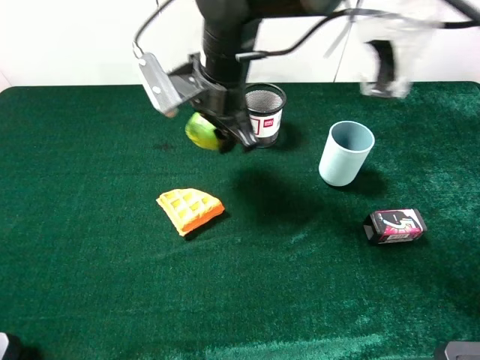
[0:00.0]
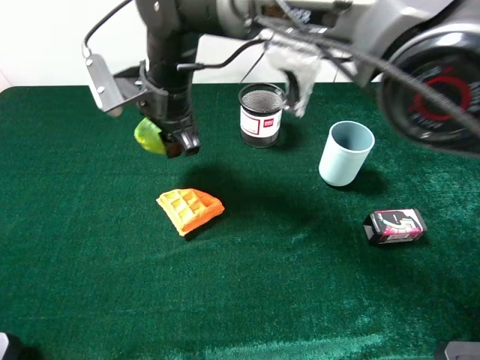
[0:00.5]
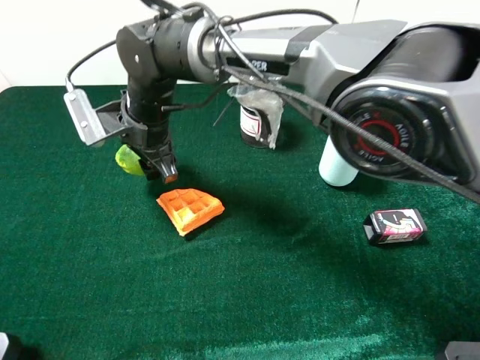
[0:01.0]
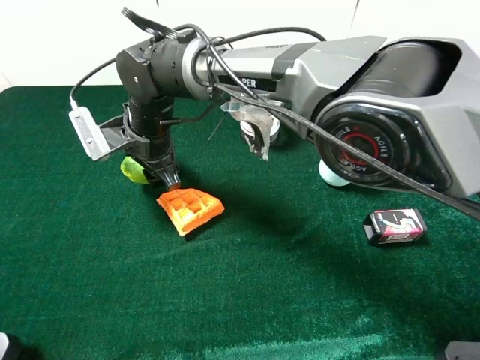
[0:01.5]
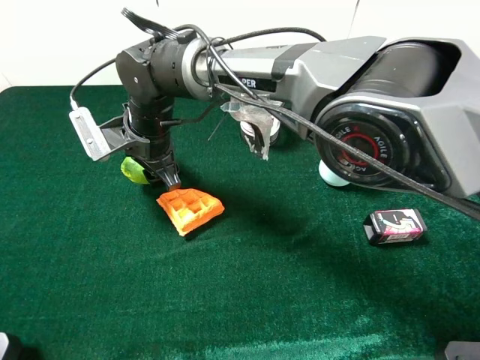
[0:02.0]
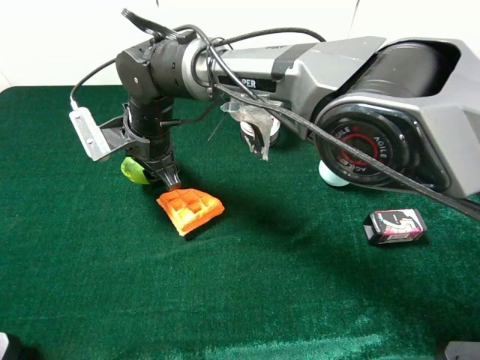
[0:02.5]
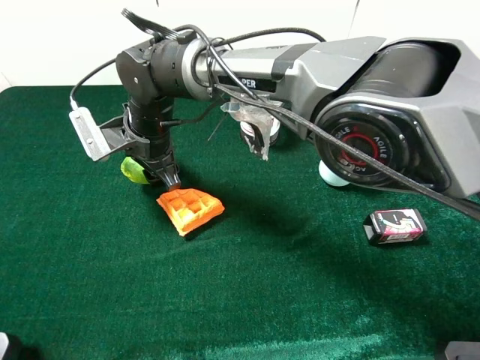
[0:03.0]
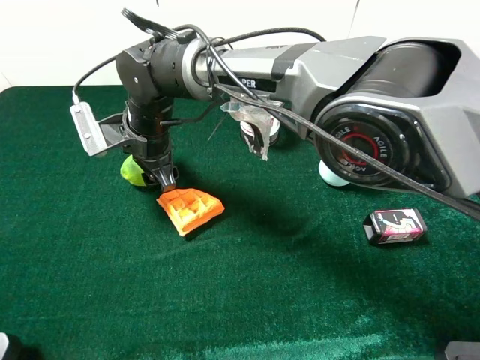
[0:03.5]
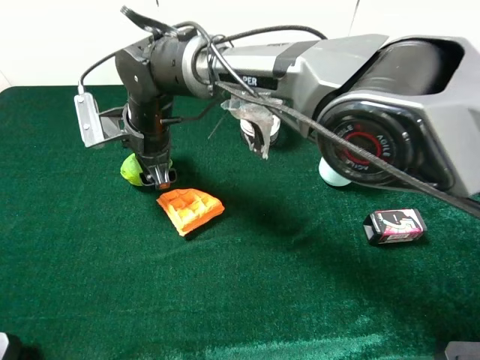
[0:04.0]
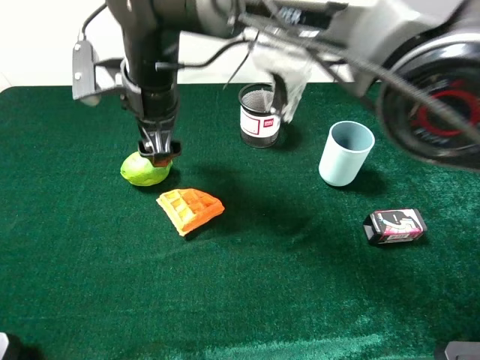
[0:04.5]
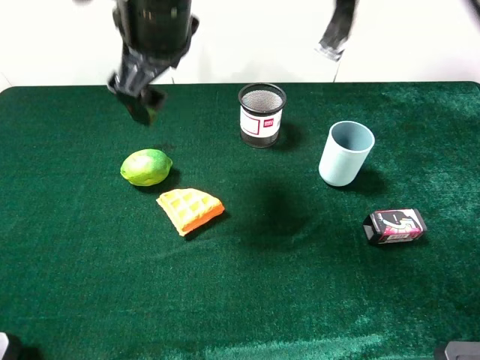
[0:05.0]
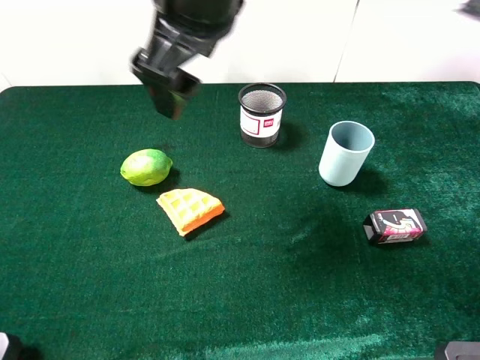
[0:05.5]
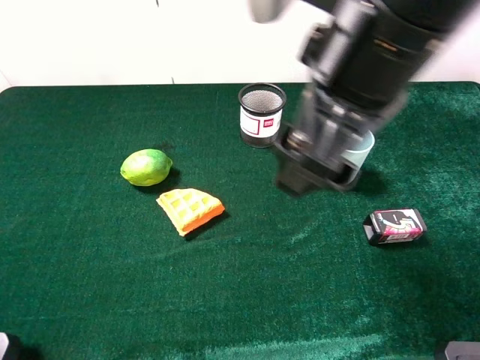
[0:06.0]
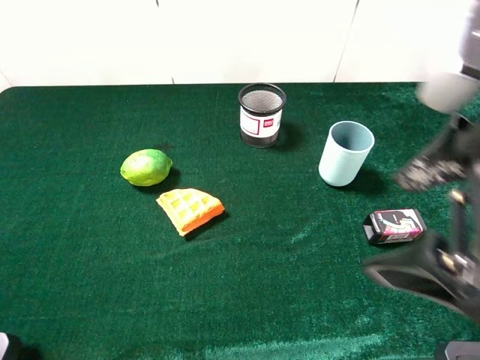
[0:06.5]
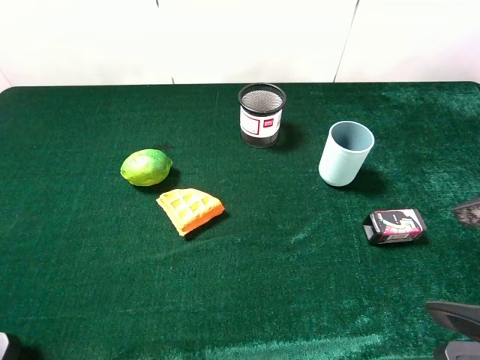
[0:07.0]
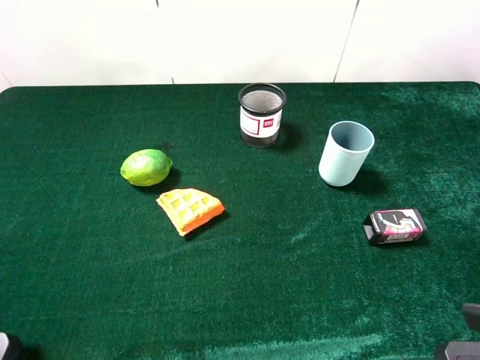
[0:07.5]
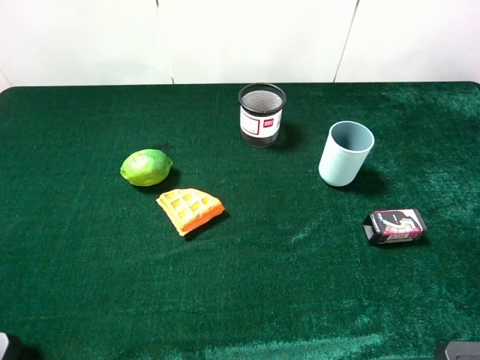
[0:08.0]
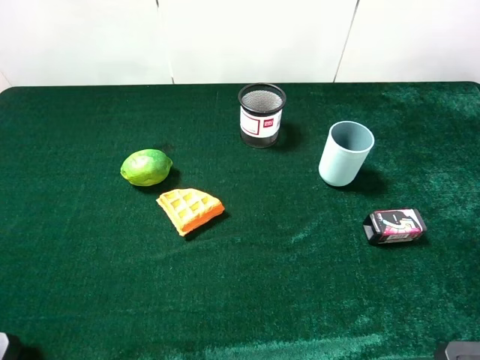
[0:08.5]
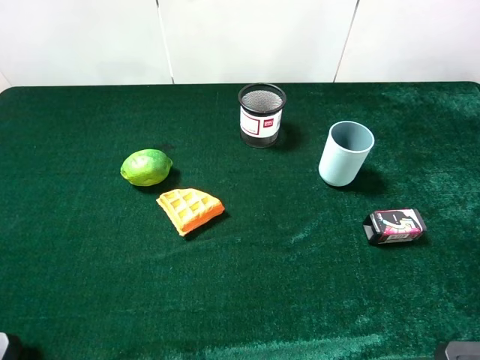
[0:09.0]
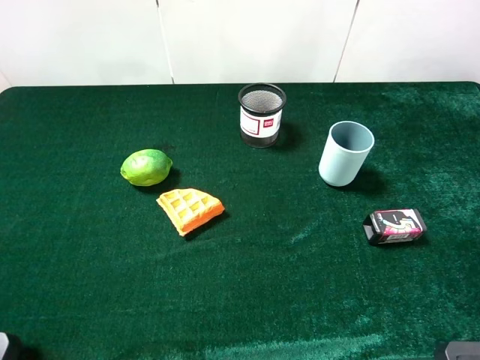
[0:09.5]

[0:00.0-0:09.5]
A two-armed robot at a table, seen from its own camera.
Task of the whole recording: the gripper move the object.
Step, 0:00.0 to 0:04.5: Place the green lemon on the table with the right gripper.
0:00.0 to 0:02.0: The right gripper moves to the left and downward, roughly 15 cm.
0:02.0 to 0:04.0: The right gripper opens.
0:04.0 to 0:05.5: The right gripper goes roughly 25 cm upward and to the right.
0:05.5 to 0:07.5: The right gripper travels to the right and backward by approximately 40 cm.

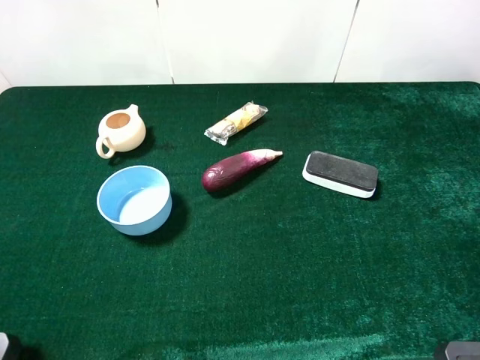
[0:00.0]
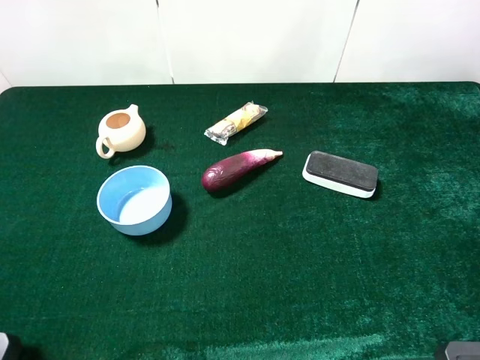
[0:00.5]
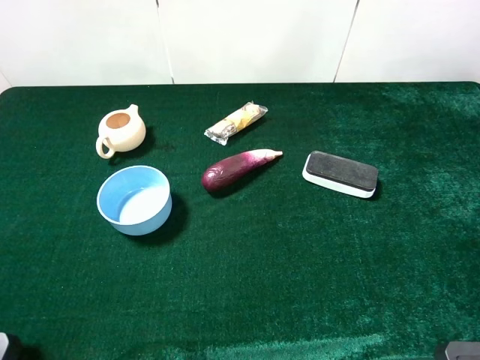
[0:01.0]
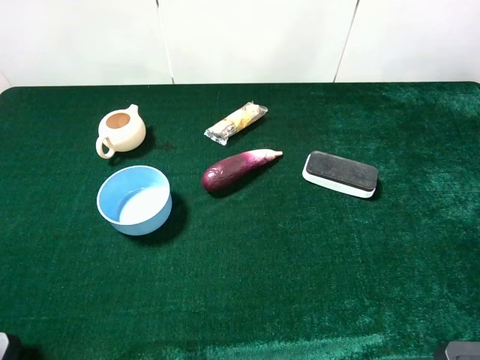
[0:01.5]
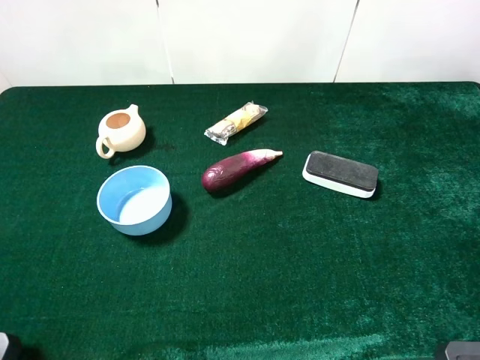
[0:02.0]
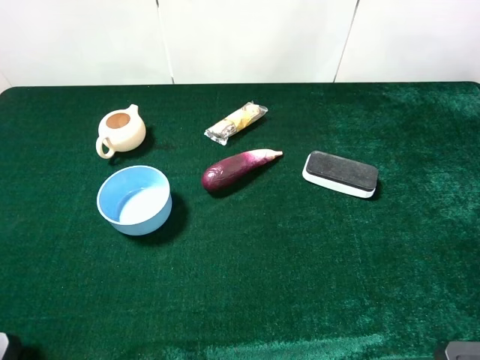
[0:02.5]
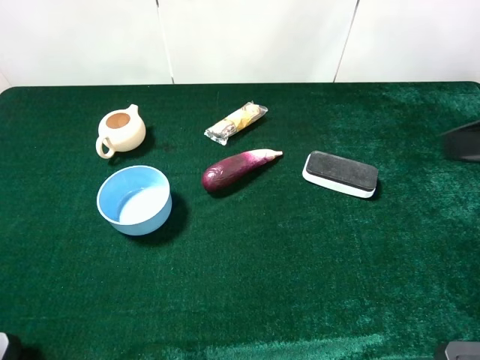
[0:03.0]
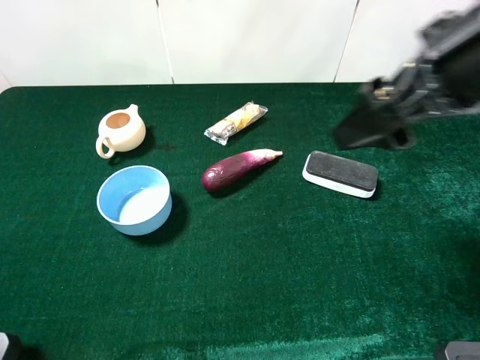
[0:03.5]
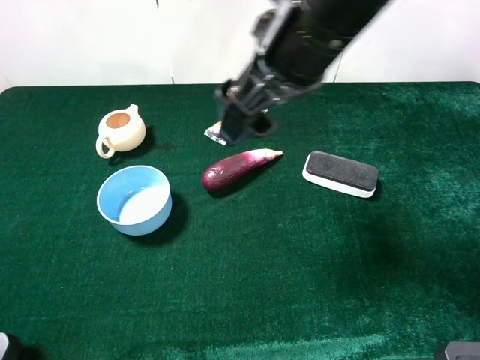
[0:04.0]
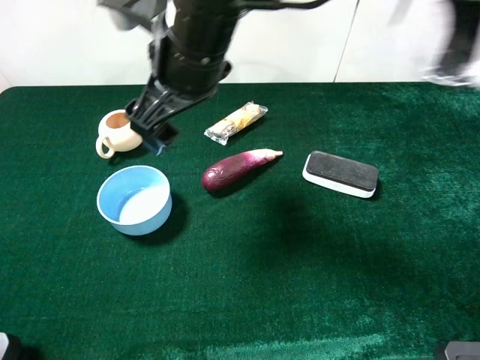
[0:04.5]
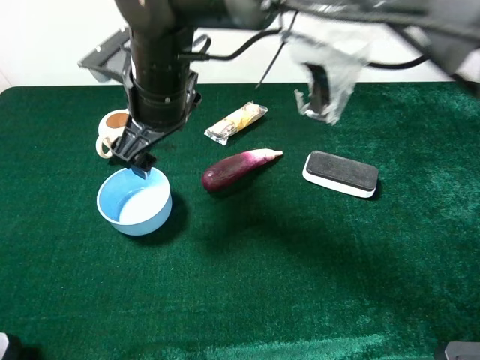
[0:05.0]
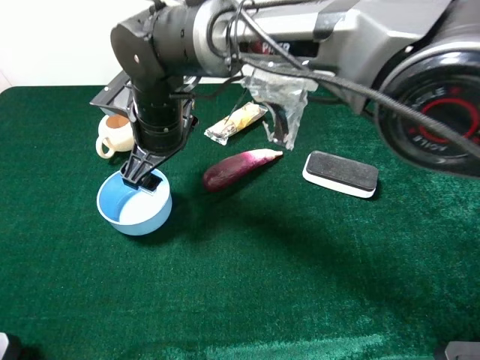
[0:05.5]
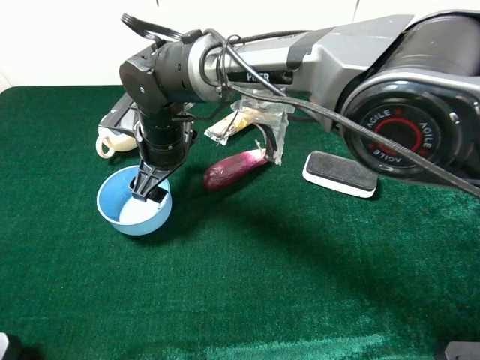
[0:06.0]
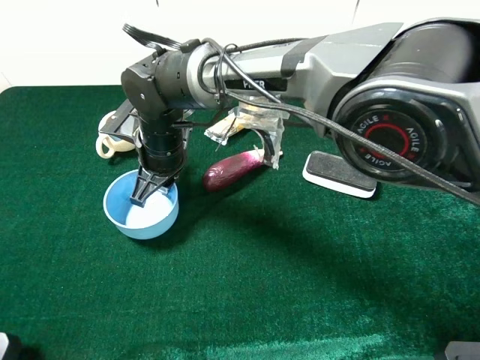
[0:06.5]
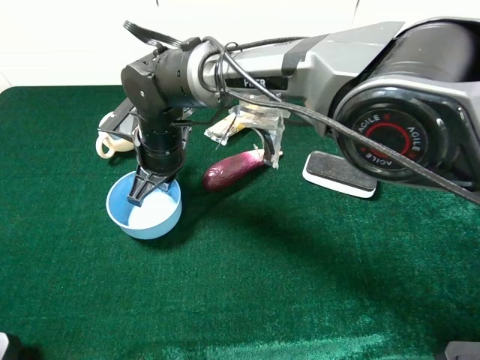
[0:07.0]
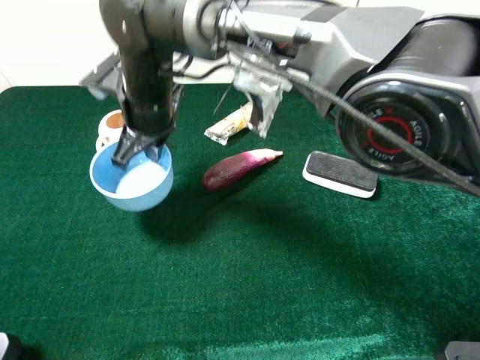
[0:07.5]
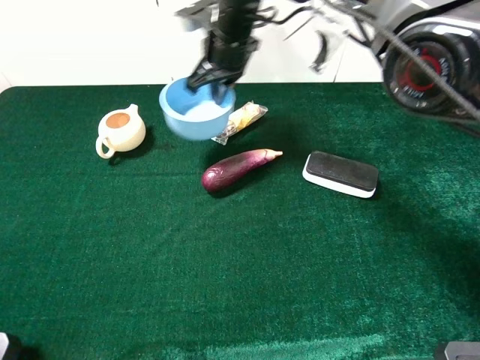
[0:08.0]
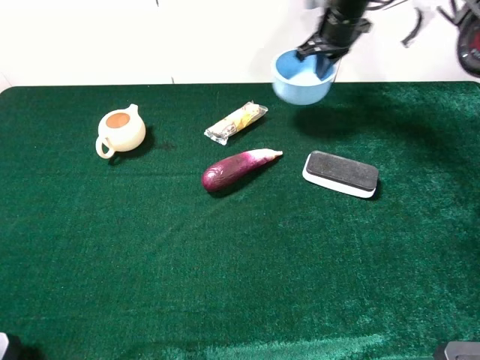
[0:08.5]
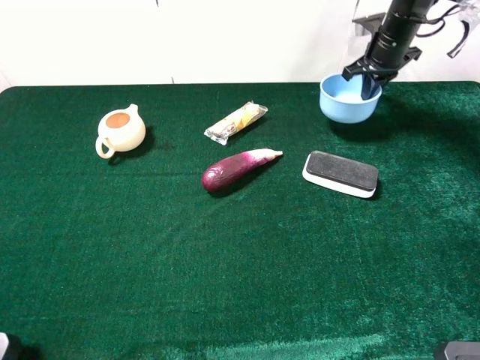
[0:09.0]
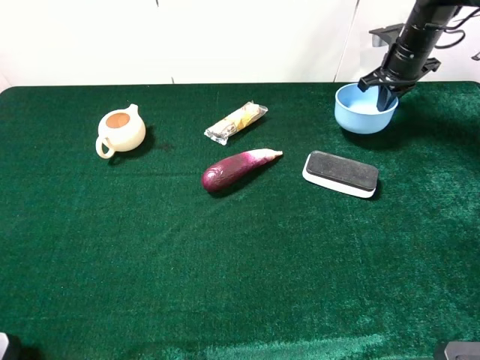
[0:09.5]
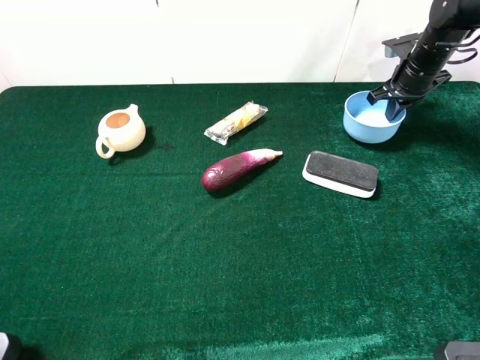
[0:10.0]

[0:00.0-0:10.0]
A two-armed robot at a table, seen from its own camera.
Task of the whole recording: the gripper move the object.
Step, 0:00.0 to 0:06.5: Grasp the blue bowl with the right gripper.
0:02.0 to 0:04.0: The right gripper shifts roughly 30 cm forward and to the left.
0:04.0 to 0:06.0: The right gripper goes about 25 cm downward and to the left.
0:06.0 to 0:08.0: The right gripper goes some 15 cm forward, upward and to the right, and closes.
0:08.0 to 0:10.0: The right gripper goes some 35 cm to the right.

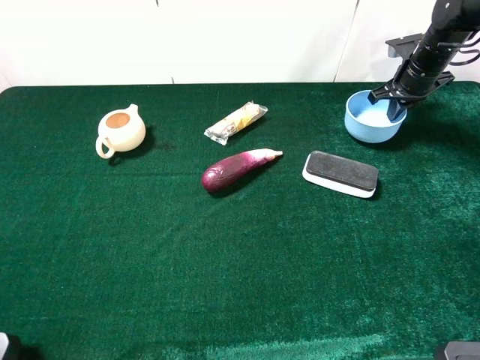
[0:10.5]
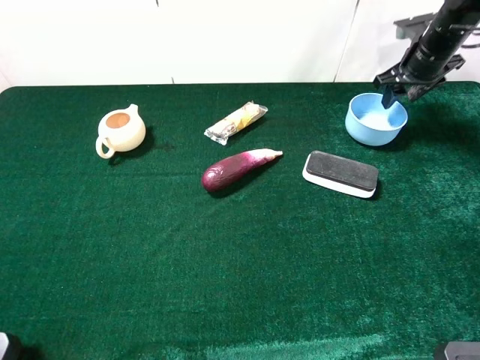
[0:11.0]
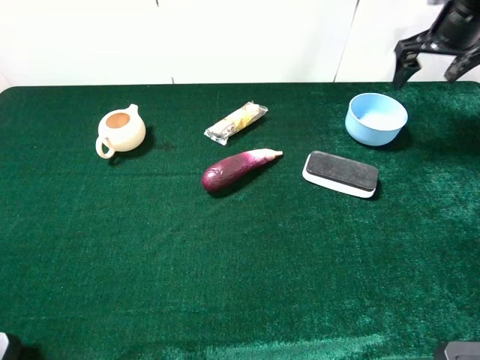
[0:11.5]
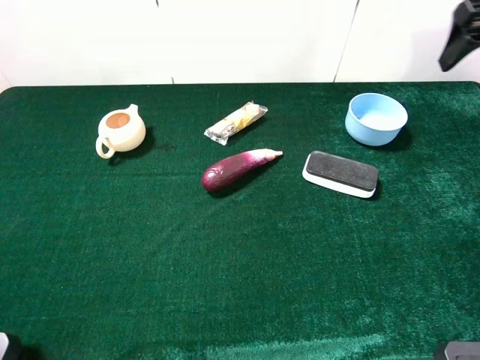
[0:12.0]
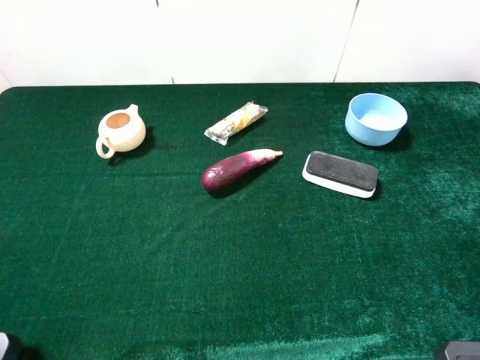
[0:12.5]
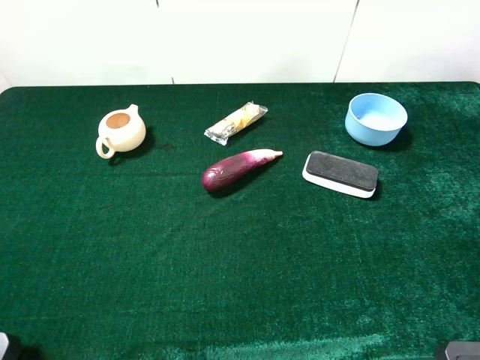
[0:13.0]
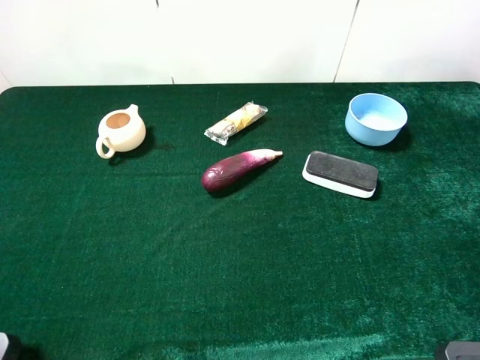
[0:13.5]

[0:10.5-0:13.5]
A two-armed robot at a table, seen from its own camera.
Task of the whole recording: the gripper move the object.
0:10.5 to 0:12.0: The right gripper is displaced upward and backward by some 20 cm, and opens up.
0:12.0 to 0:13.5: The right gripper heads backward, covering approximately 35 cm.
